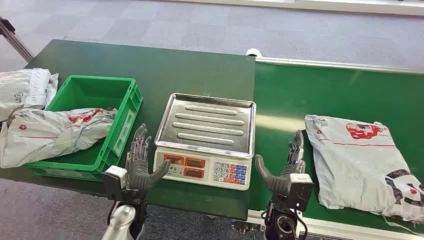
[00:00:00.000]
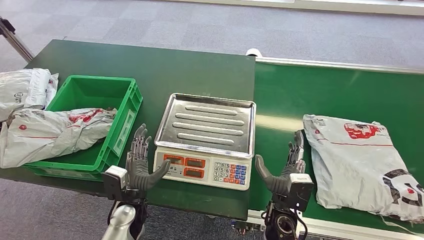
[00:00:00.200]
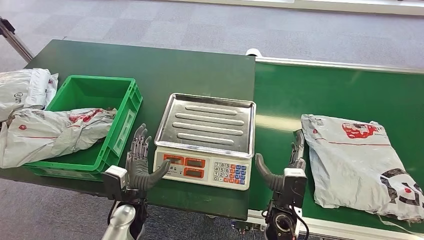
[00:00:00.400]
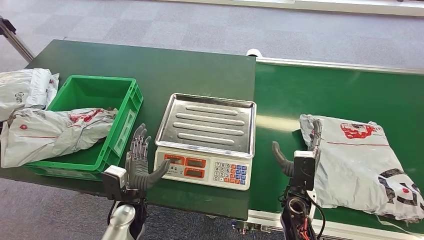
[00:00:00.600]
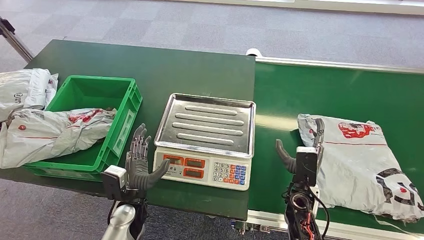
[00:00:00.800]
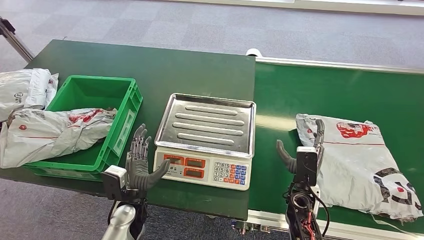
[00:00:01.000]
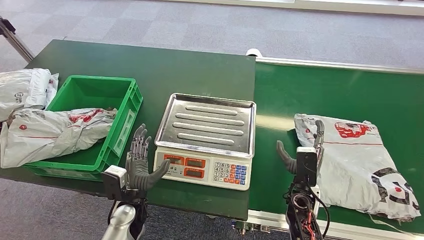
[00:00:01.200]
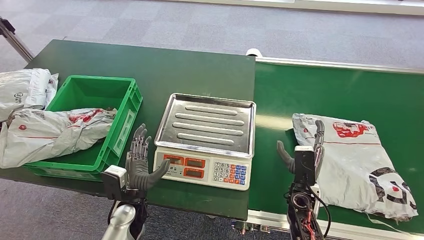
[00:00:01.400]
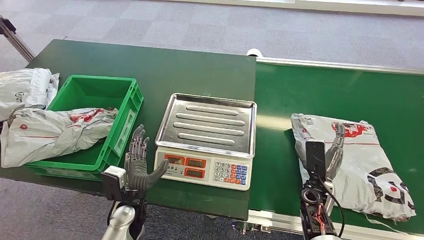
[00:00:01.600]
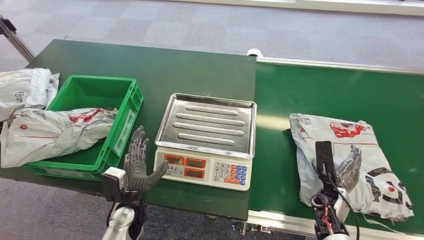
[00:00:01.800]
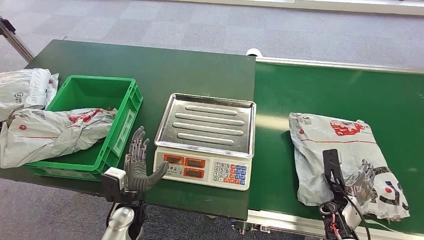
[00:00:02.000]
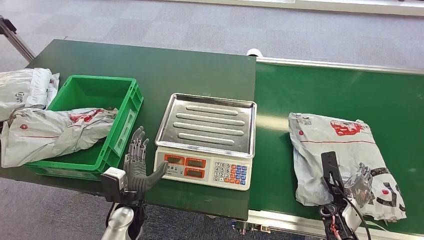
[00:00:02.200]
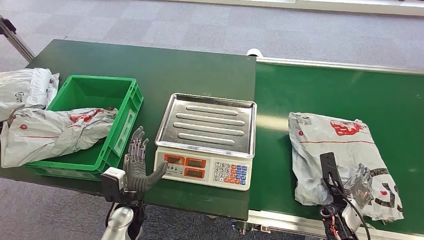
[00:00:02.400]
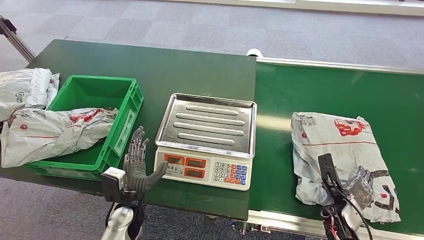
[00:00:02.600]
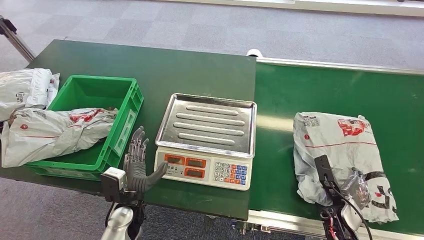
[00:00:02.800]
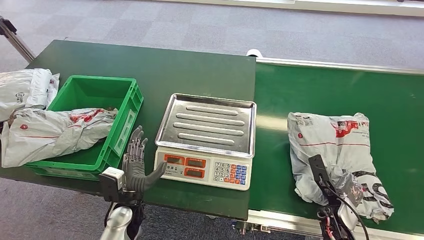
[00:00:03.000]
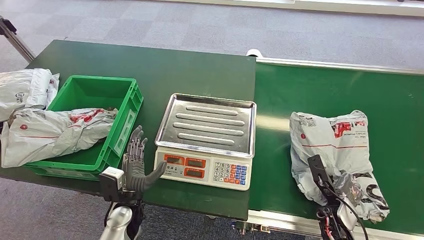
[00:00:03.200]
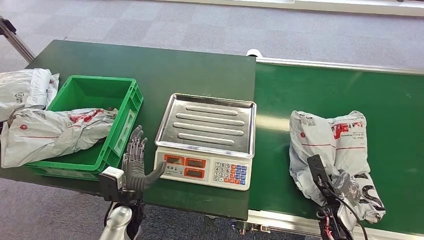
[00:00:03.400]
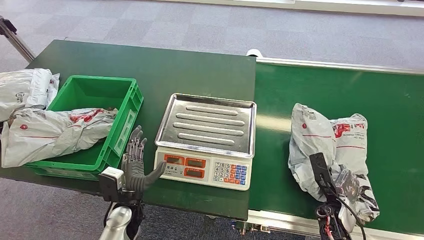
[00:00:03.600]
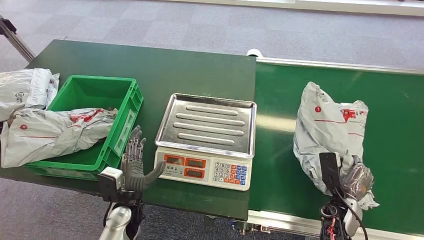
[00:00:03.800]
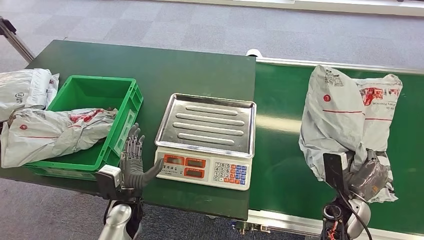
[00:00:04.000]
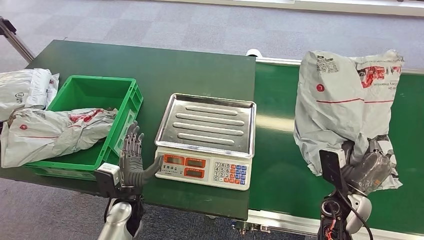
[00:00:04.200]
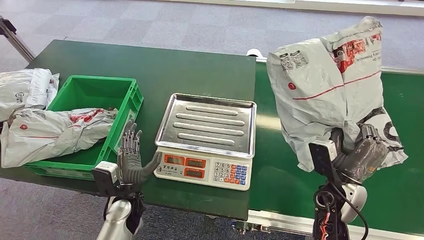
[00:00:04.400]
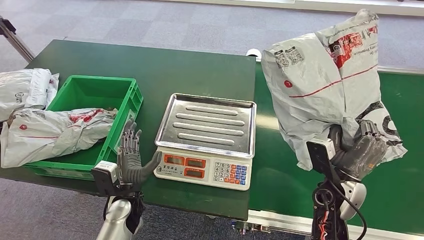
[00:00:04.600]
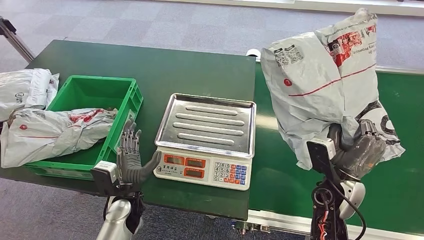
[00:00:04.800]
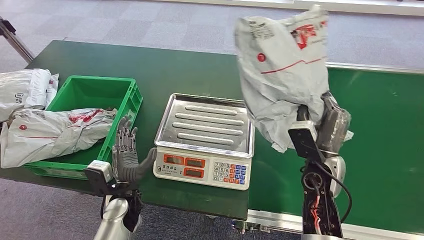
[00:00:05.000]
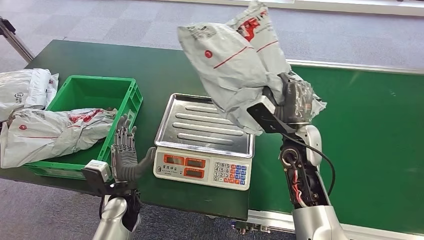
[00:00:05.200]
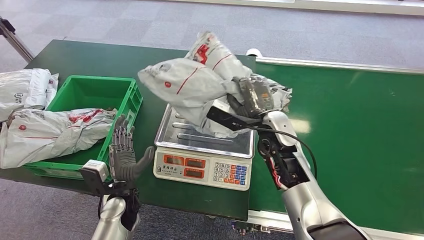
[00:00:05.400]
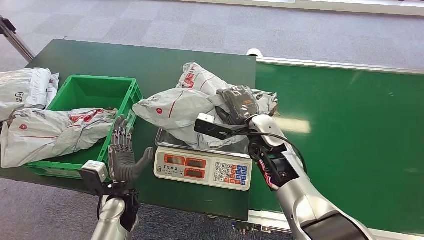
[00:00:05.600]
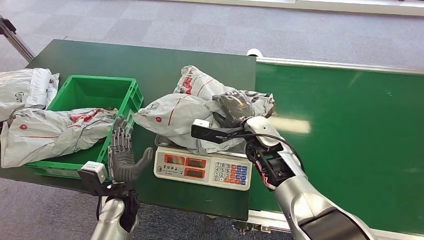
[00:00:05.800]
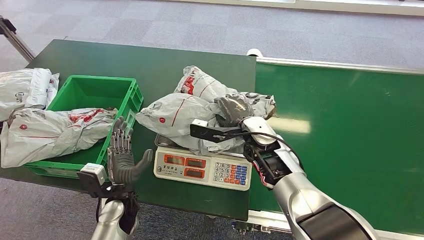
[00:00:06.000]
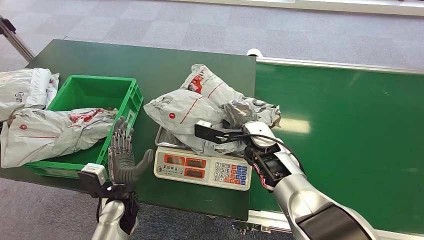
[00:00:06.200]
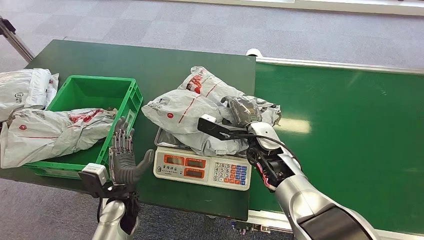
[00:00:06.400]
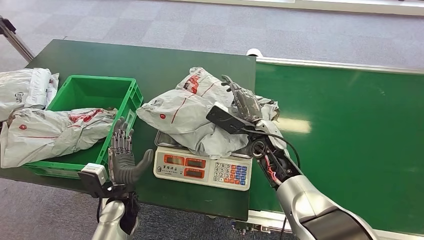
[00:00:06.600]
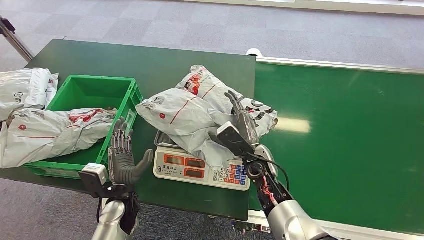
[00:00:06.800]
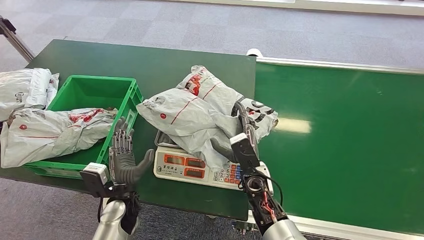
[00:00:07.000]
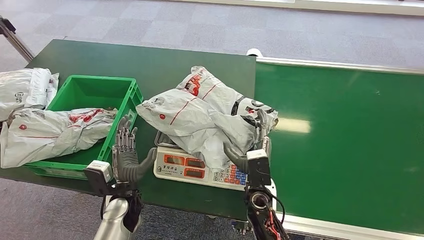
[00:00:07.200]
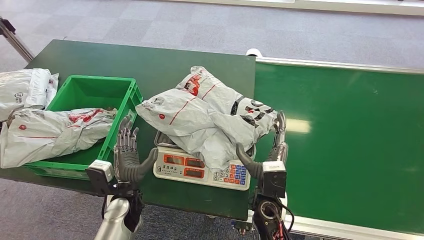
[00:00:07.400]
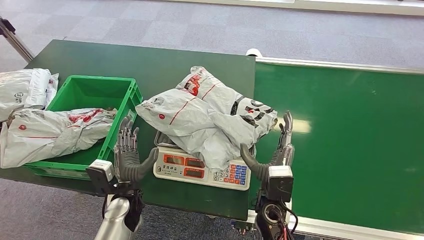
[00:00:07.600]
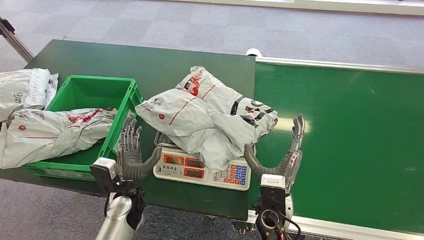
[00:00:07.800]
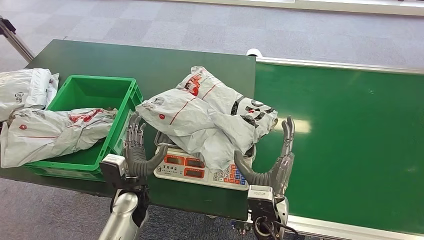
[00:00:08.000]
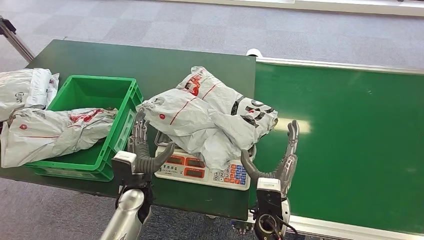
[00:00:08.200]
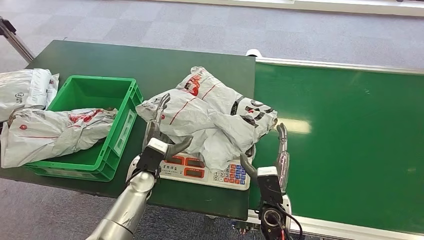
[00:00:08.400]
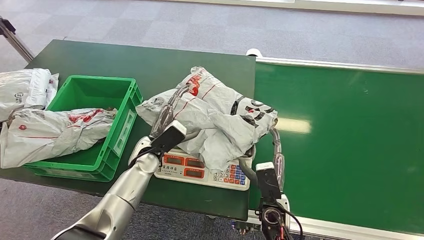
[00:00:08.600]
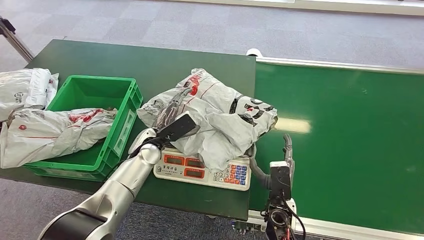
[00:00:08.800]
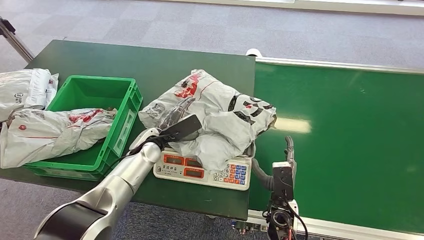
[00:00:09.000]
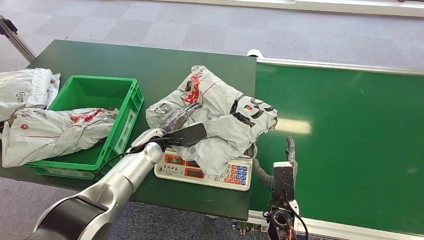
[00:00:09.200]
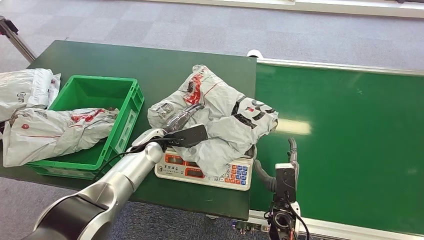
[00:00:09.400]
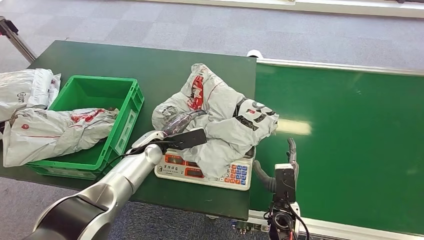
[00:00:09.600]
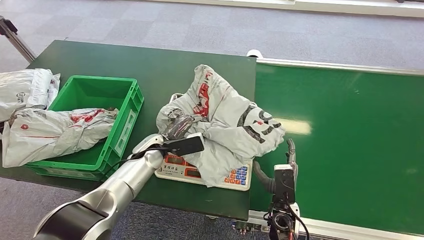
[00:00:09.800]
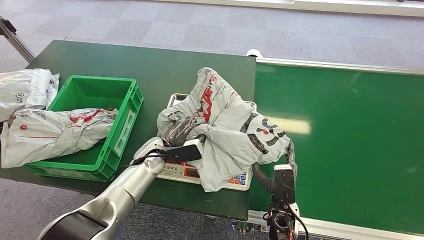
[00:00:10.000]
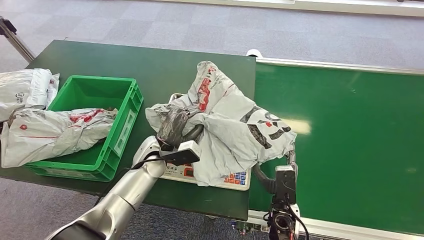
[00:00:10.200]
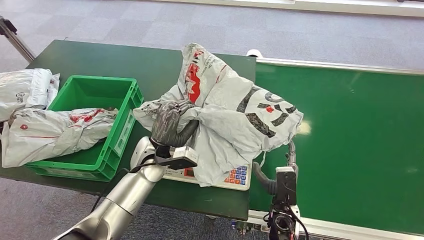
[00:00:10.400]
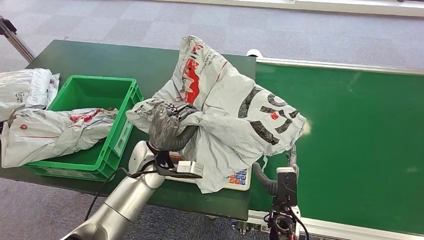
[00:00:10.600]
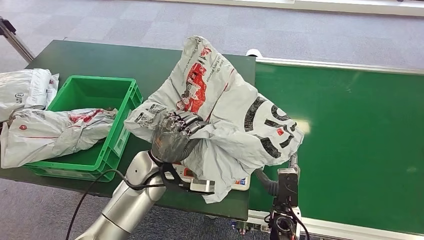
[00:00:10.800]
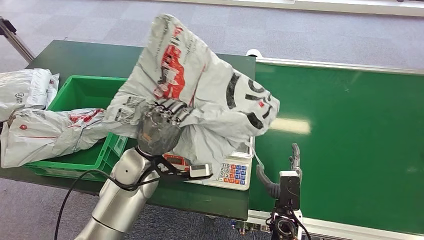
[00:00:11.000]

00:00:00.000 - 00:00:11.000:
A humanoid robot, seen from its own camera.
Step, 00:00:00.000 - 00:00:04.000: Pick up the package from the conveyor belt.
Step, 00:00:04.400 - 00:00:08.000: Place the package onto the inbound machine.
Step, 00:00:08.200 - 00:00:10.800: Pick up the package from the inbound machine.
00:00:01.600 - 00:00:03.200: The right hand travels to the right by approximately 5 cm.
00:00:03.200 - 00:00:04.800: The right hand moves upward and to the left, about 15 cm.
00:00:06.200 - 00:00:07.800: The right hand heads backward and downward, covering about 15 cm.

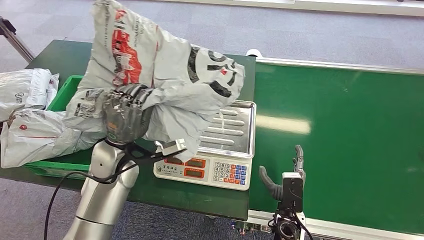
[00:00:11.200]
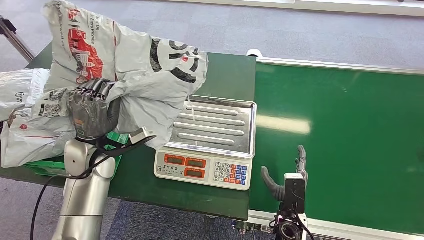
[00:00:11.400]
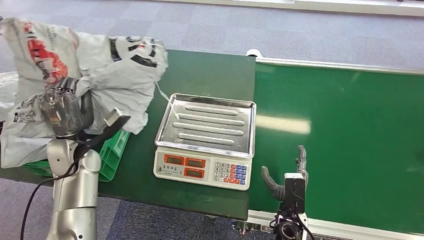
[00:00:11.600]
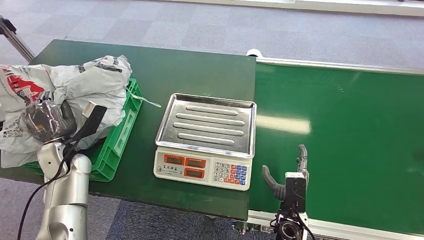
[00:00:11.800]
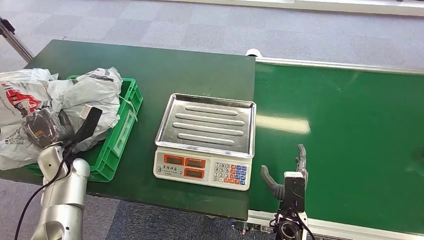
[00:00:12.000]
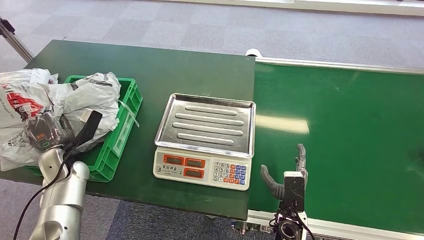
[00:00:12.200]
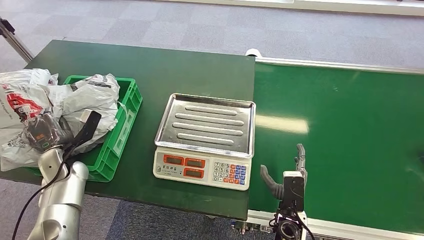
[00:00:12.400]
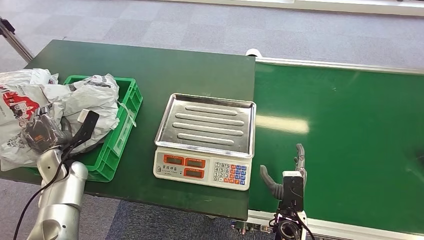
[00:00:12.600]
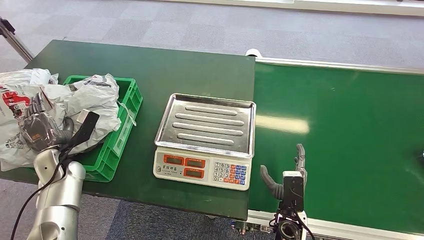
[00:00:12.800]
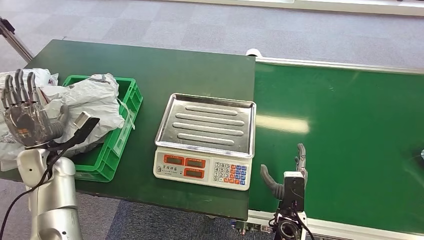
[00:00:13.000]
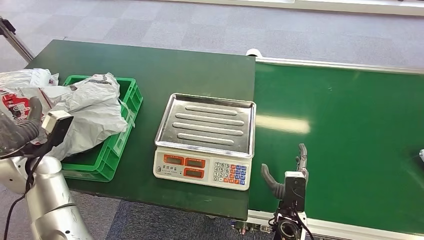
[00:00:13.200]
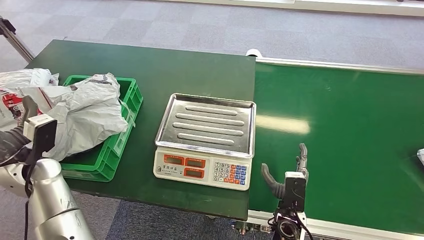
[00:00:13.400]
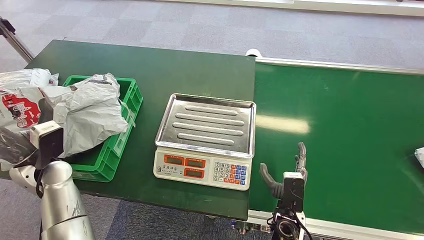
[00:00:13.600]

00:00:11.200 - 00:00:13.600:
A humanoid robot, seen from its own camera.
Step, 00:00:11.200 - 00:00:13.600: Place the package into the parcel locker.
00:00:12.400 - 00:00:13.600: The left hand goes approximately 10 cm upward.
